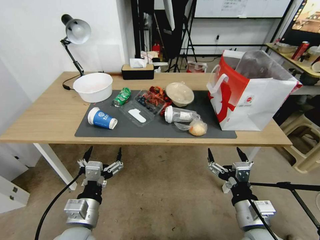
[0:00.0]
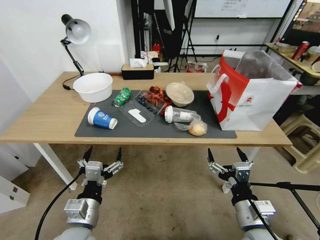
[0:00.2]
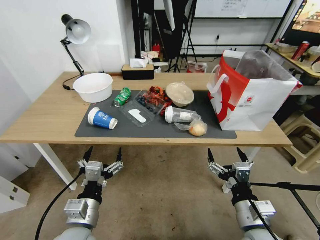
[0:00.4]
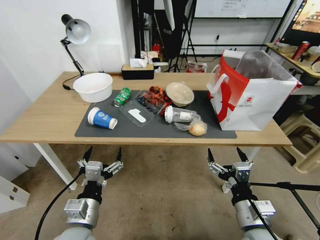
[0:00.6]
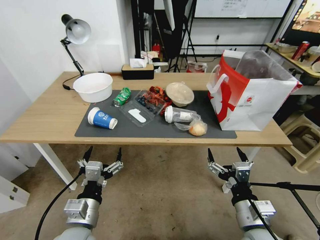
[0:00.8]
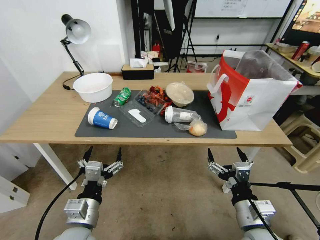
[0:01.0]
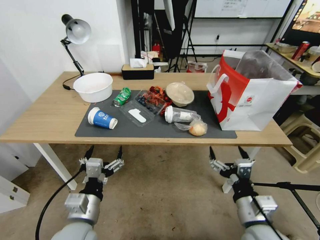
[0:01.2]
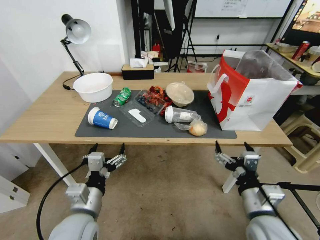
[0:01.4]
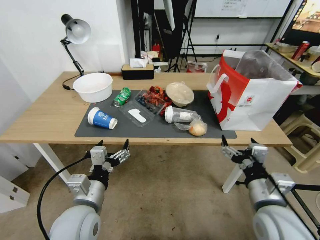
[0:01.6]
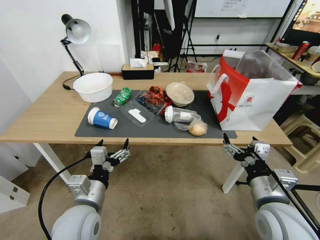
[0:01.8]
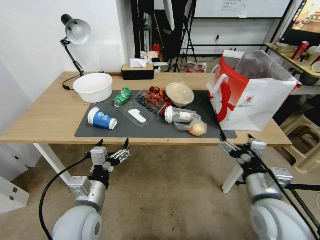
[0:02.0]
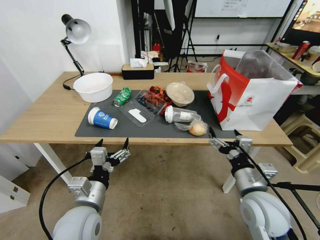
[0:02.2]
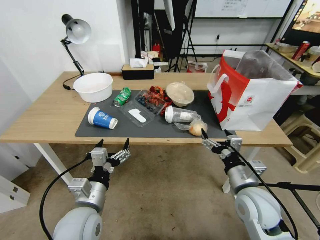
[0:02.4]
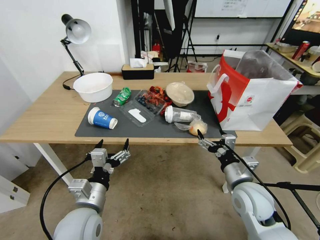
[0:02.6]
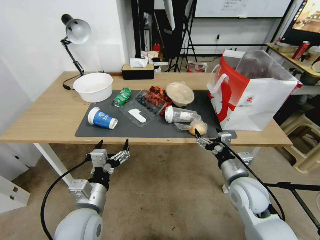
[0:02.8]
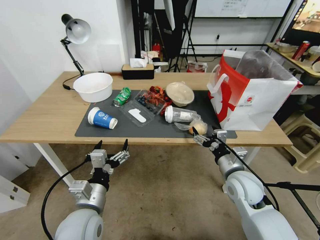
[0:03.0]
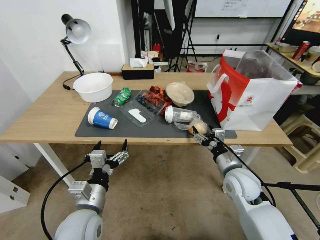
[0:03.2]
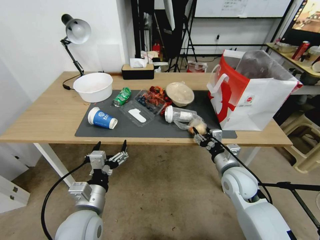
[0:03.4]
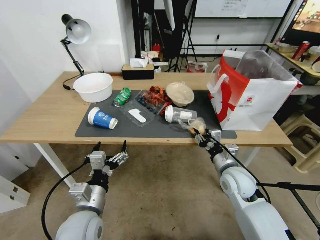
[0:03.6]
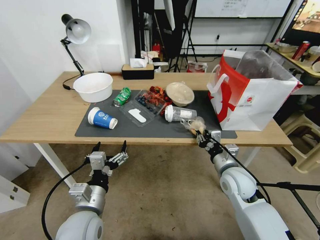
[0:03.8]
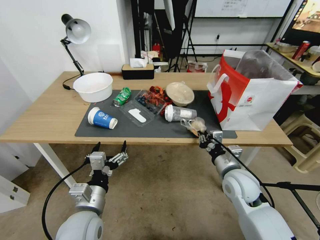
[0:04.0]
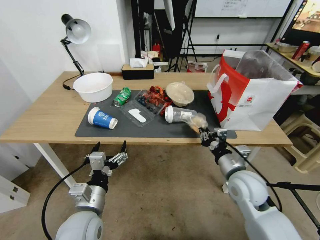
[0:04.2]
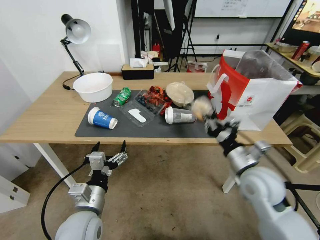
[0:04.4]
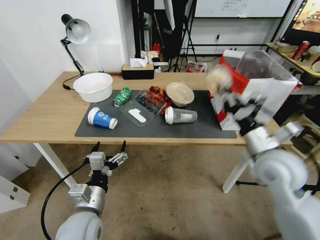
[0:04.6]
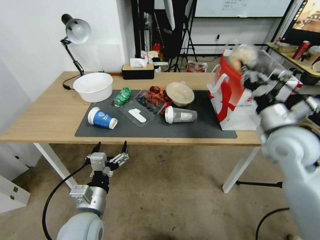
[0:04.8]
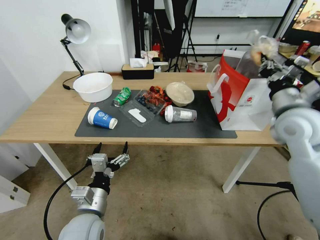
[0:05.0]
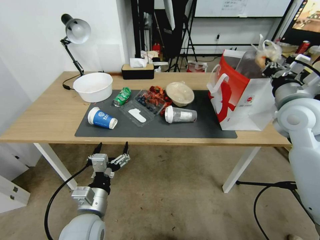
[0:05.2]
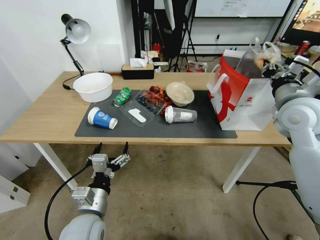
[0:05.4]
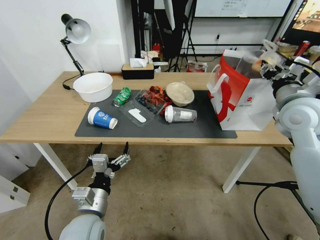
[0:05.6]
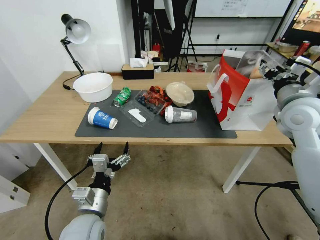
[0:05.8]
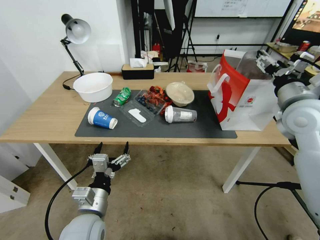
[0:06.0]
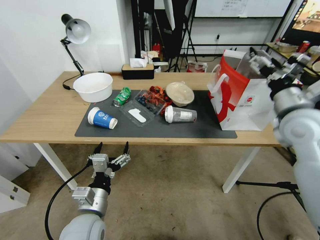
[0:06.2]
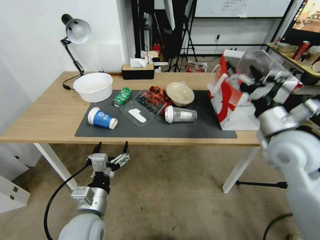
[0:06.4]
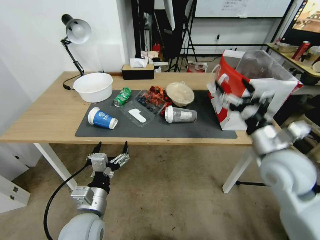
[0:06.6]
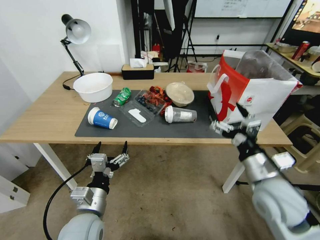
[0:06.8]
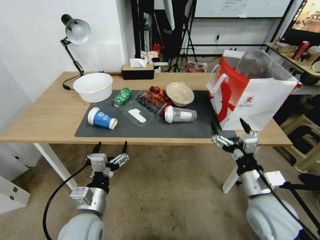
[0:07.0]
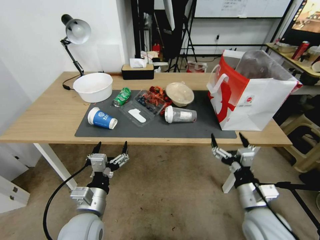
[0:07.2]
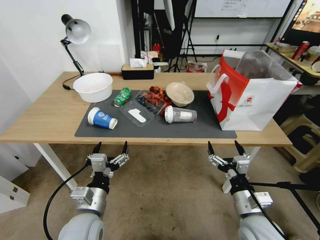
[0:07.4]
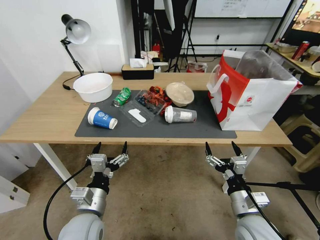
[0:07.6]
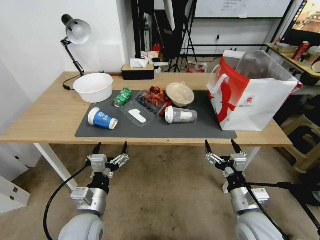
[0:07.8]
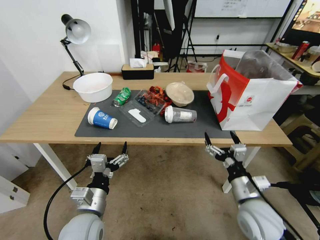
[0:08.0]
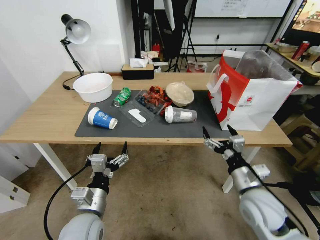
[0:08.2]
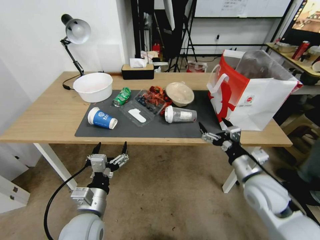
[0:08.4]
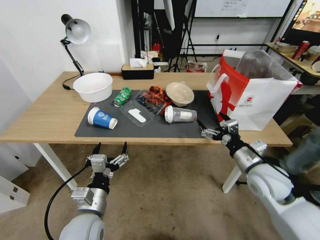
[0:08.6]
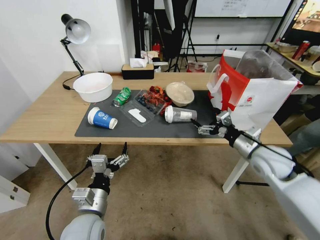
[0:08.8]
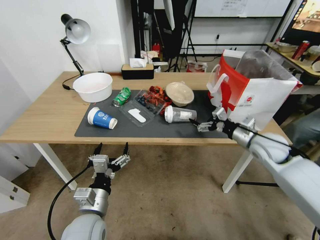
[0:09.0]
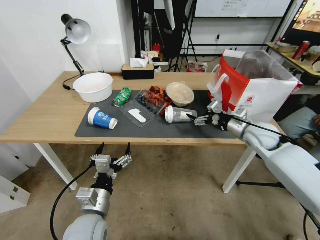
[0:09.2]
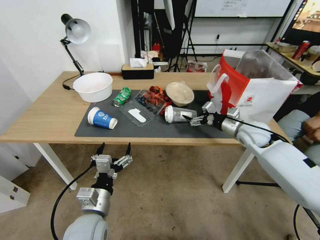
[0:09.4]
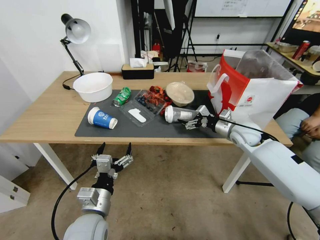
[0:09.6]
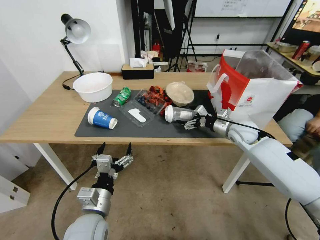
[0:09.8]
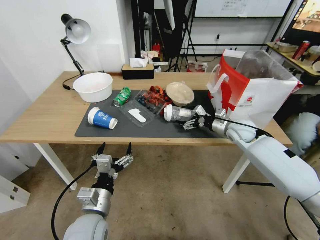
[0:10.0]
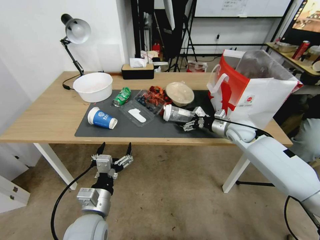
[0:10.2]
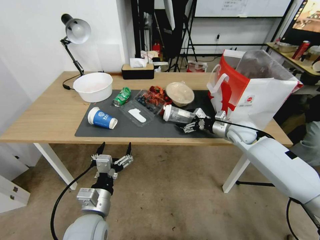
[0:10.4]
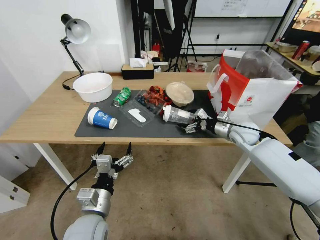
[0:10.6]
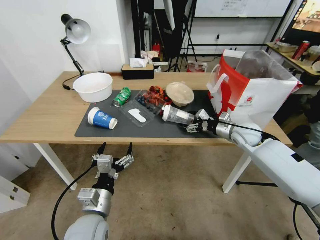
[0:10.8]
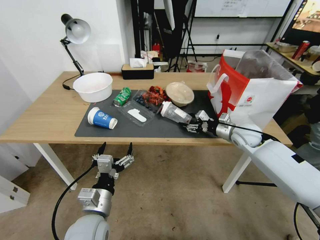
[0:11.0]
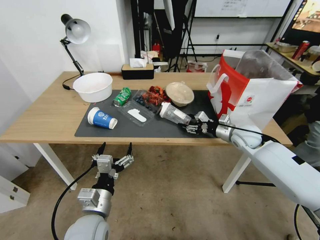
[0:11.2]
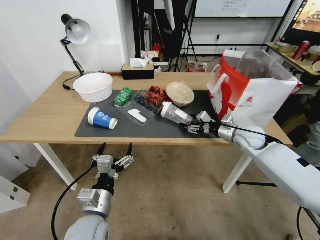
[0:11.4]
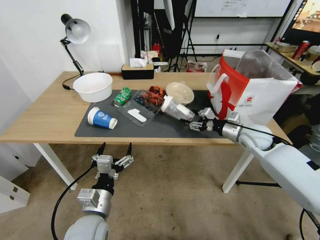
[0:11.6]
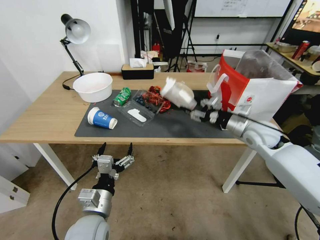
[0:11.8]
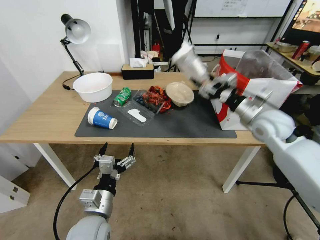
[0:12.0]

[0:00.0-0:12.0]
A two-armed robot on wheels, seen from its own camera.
0:01.6 to 0:03.0: The right gripper moves forward and downward, about 15 cm.
0:03.0 to 0:04.4: The right gripper moves upward, some 10 cm, and closes its fingers.
0:04.4 to 0:06.0: The right gripper travels upward, forward and to the right by approximately 20 cm, and opens up.
0:06.0 to 0:07.6: The right gripper travels downward and backward by approximately 30 cm.
0:07.6 to 0:09.0: The right gripper travels forward, upward and to the right by roughly 25 cm.
0:09.0 to 0:10.4: The right gripper heads forward, covering approximately 10 cm.
0:10.4 to 0:12.0: The right gripper travels upward and backward by approximately 15 cm, and closes its fingers.

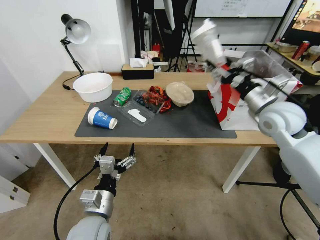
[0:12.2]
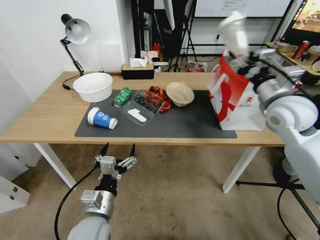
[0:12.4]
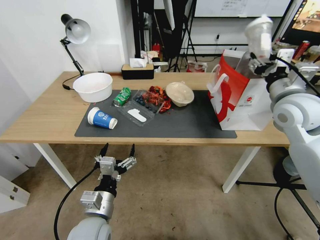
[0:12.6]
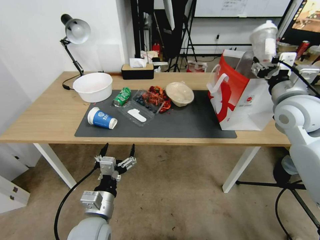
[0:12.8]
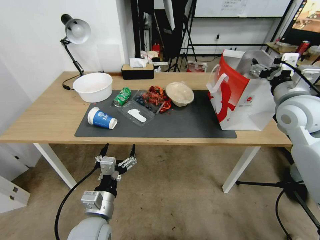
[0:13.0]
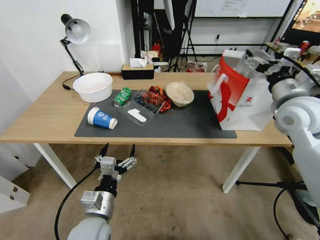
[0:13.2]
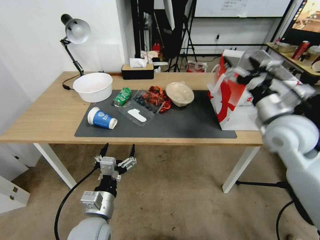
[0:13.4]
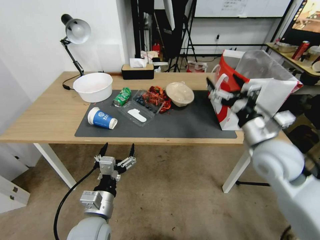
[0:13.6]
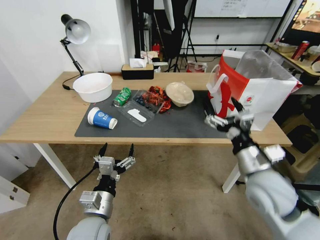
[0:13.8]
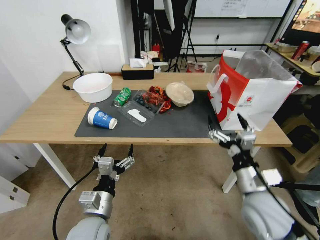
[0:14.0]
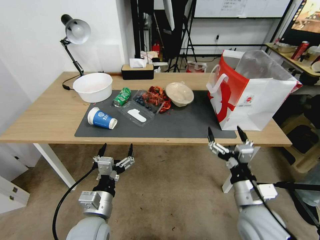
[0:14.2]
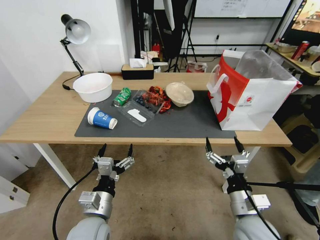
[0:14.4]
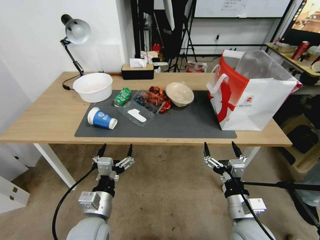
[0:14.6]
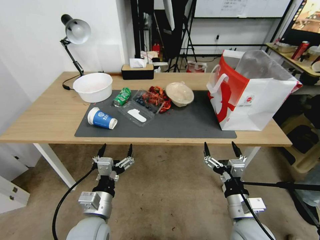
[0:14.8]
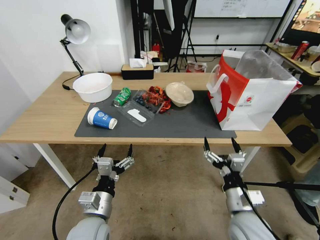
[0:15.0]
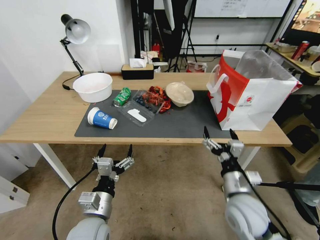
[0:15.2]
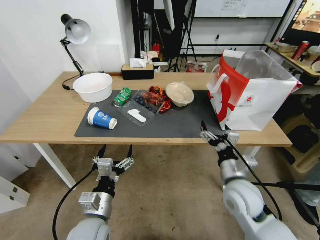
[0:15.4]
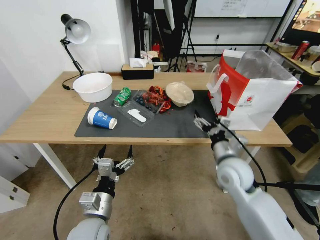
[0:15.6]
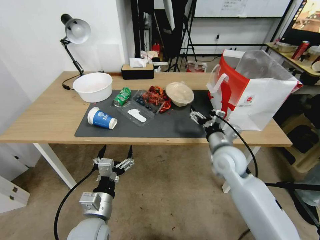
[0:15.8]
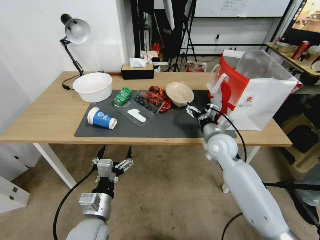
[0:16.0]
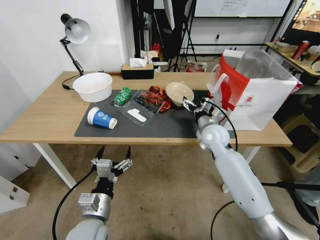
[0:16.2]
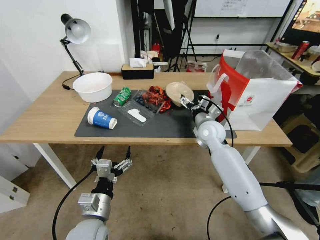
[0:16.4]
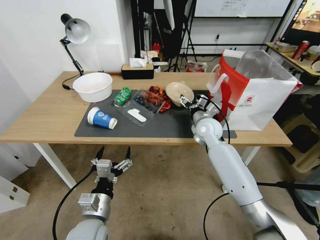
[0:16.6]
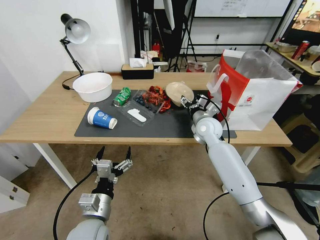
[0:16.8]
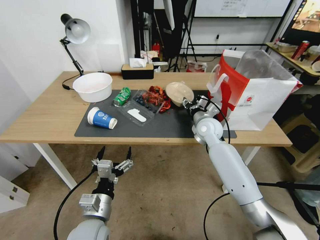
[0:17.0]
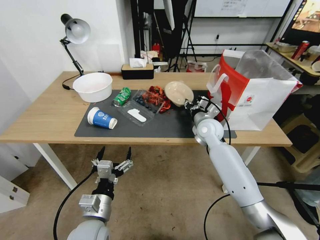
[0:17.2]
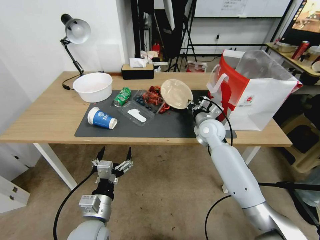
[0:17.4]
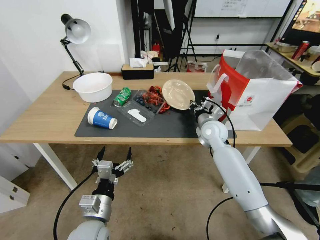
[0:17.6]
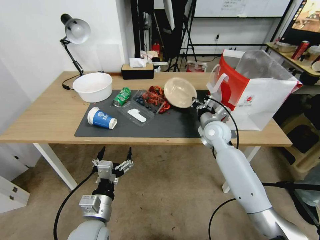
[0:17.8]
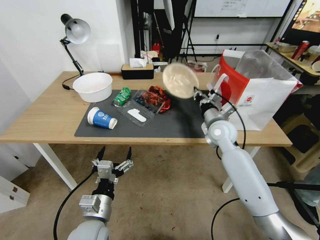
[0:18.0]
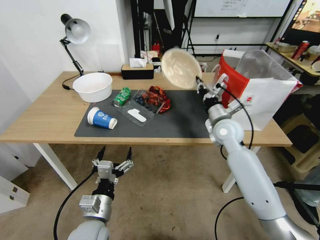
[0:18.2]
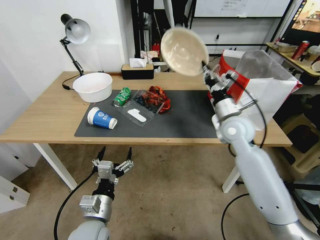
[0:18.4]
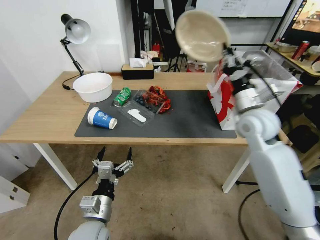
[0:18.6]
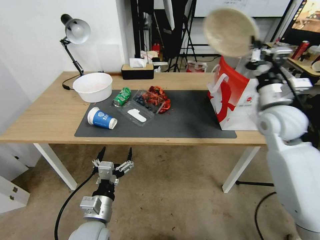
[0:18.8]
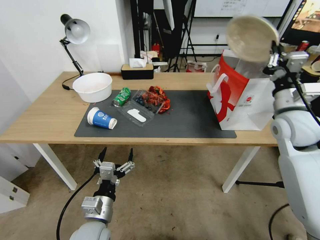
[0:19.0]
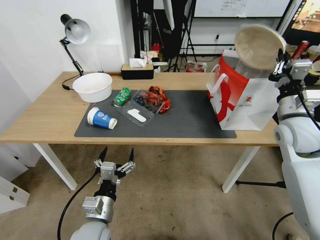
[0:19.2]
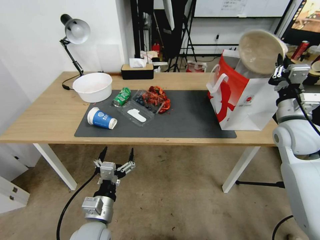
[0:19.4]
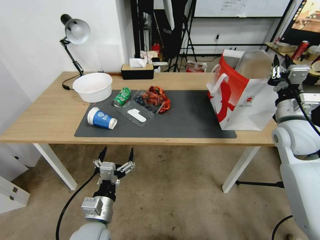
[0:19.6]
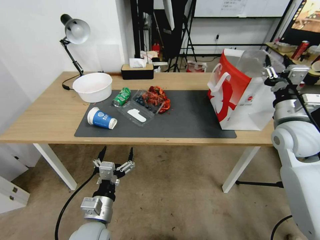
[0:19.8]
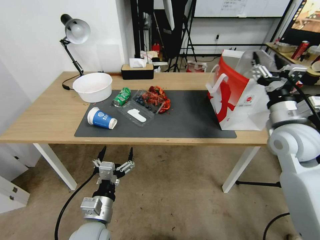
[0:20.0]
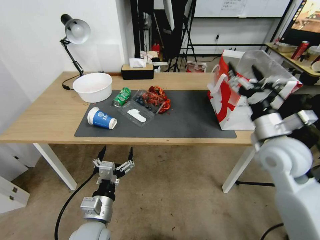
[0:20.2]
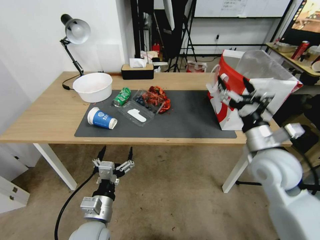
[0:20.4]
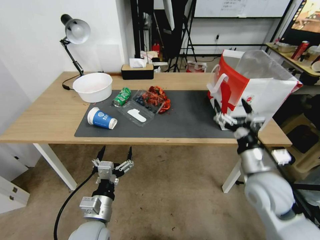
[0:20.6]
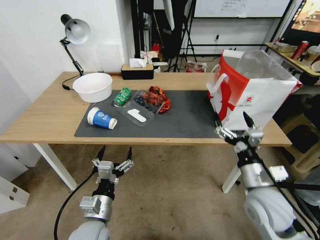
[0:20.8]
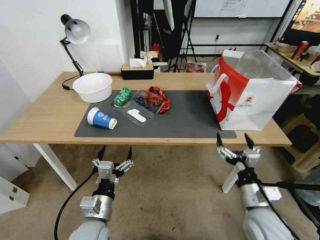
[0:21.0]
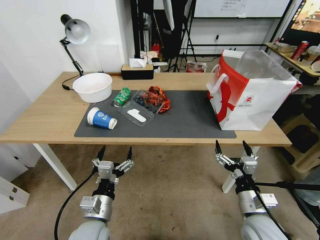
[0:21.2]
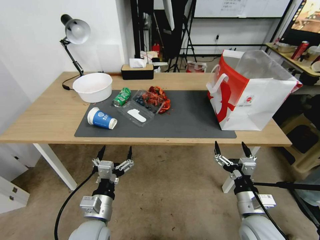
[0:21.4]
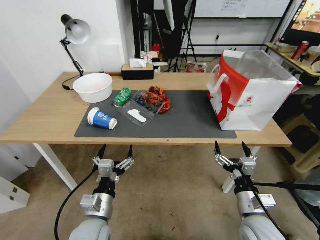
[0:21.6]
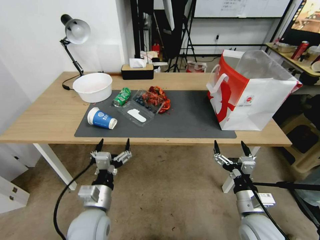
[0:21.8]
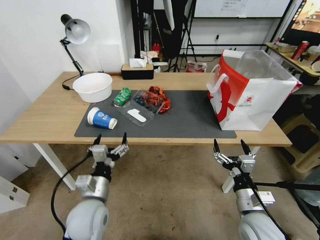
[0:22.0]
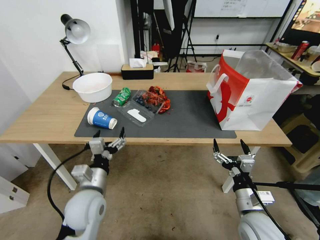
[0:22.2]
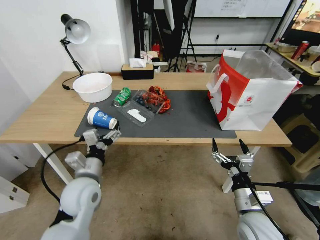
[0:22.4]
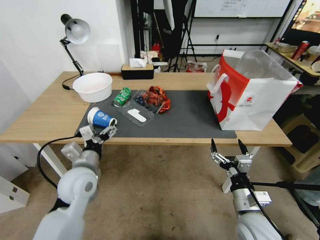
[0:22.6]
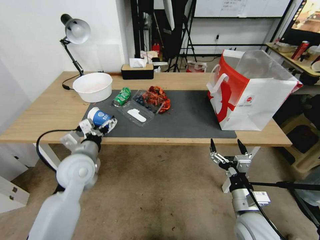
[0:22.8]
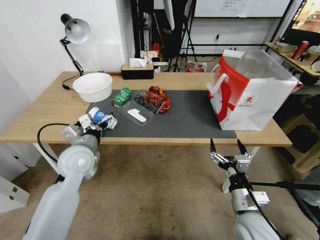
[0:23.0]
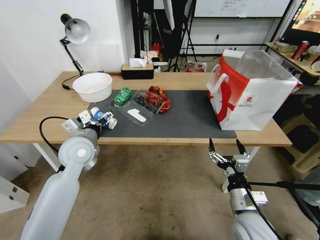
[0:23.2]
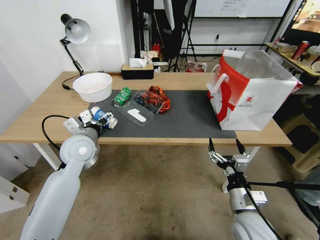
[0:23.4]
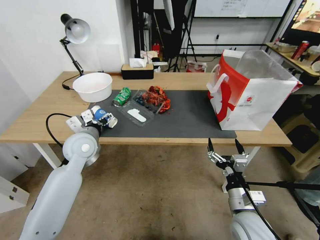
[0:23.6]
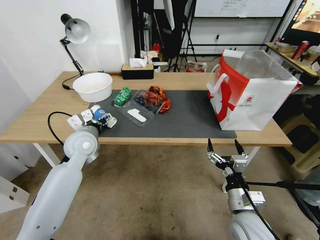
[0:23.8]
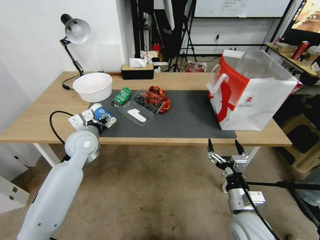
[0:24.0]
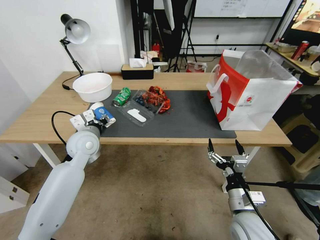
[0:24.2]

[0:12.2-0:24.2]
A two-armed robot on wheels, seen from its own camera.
0:12.2 to 0:13.8: The right gripper heads backward, downward and to the left, covering approximately 20 cm, and opens up.
0:13.8 to 0:15.2: The right gripper shifts about 10 cm downward.
0:15.2 to 0:16.6: The right gripper travels forward by about 25 cm.
0:16.6 to 0:18.2: The right gripper moves some 5 cm, and closes.
0:18.2 to 0:19.8: The right gripper shifts about 15 cm to the right, backward and upward, and opens its fingers.
0:19.8 to 0:21.2: The right gripper travels downward, backward and to the left by approximately 30 cm, and opens.
0:21.2 to 0:22.6: The left gripper goes roughly 15 cm forward and upward.
0:22.6 to 0:24.2: The left gripper shifts some 10 cm forward, and closes its fingers.
